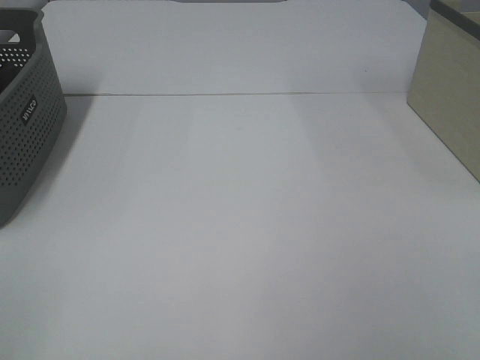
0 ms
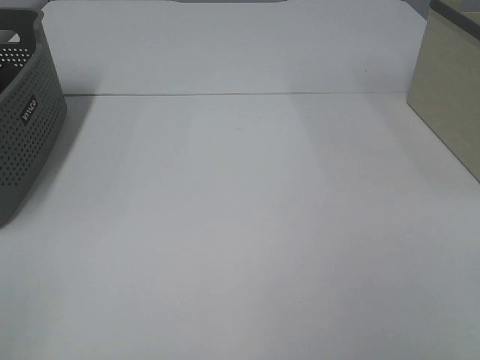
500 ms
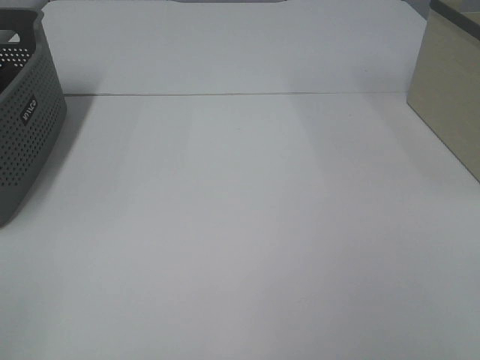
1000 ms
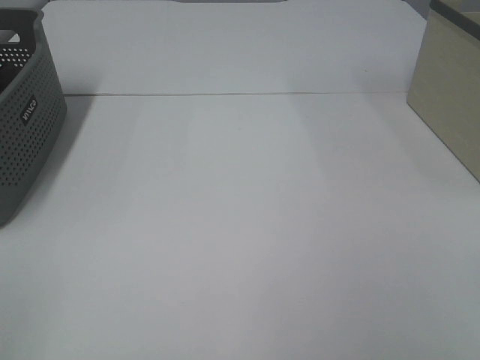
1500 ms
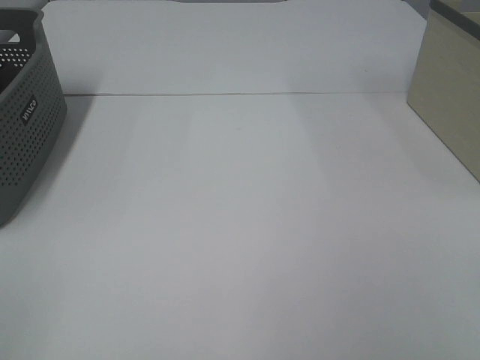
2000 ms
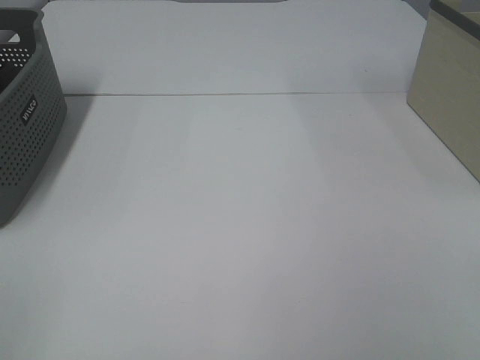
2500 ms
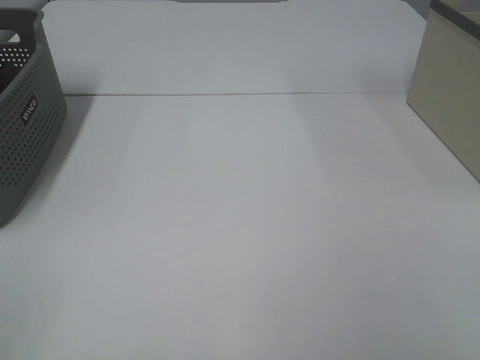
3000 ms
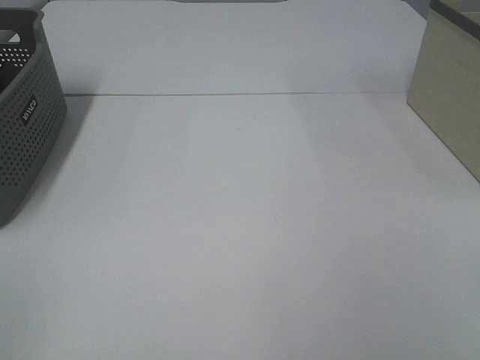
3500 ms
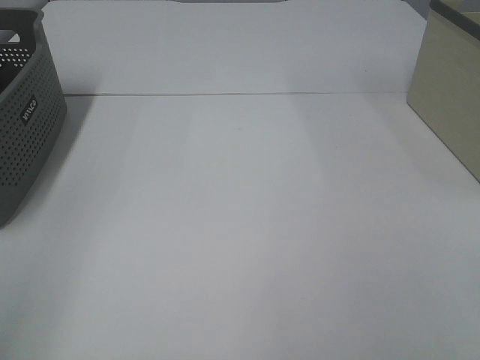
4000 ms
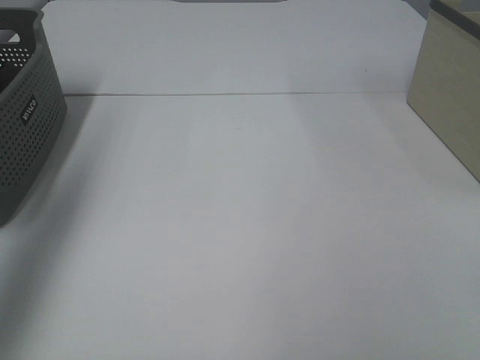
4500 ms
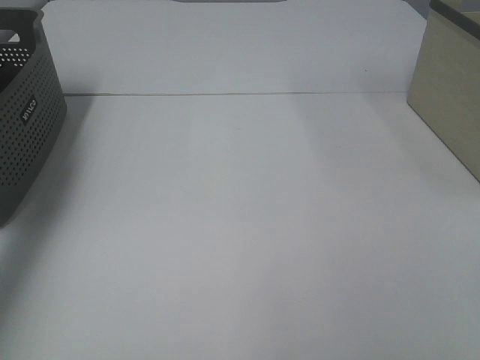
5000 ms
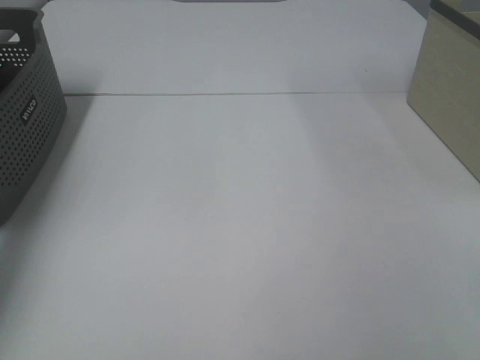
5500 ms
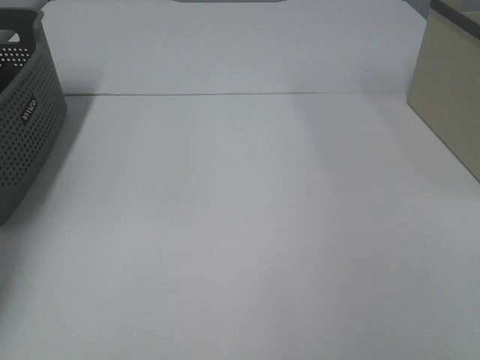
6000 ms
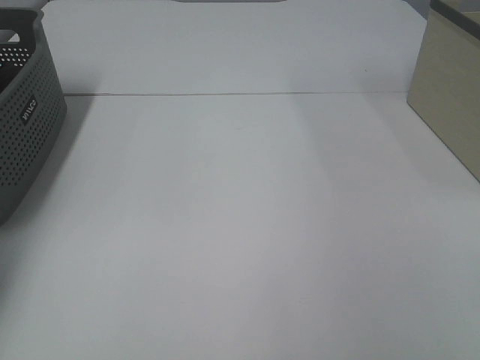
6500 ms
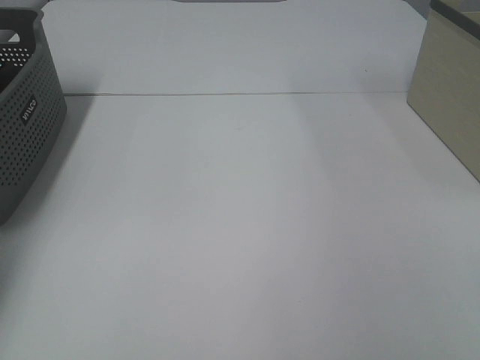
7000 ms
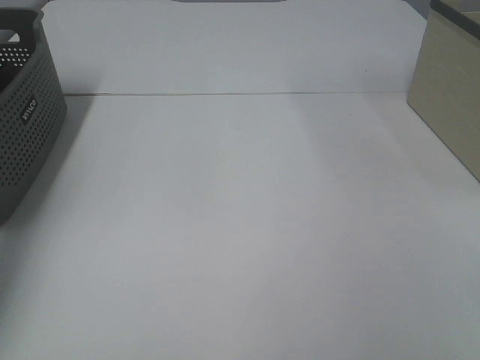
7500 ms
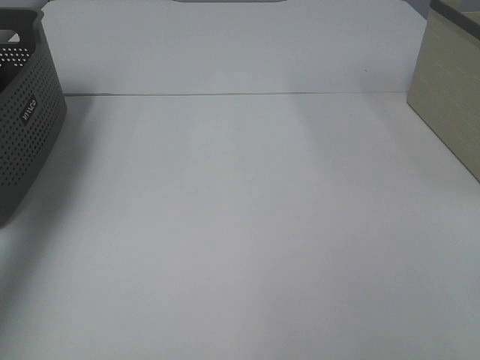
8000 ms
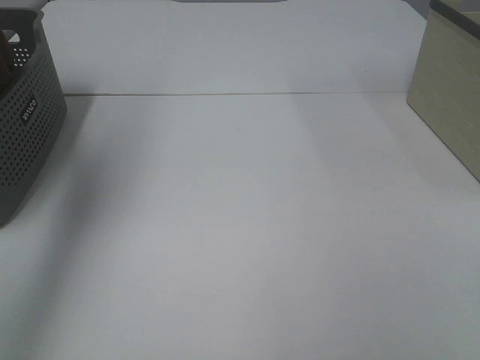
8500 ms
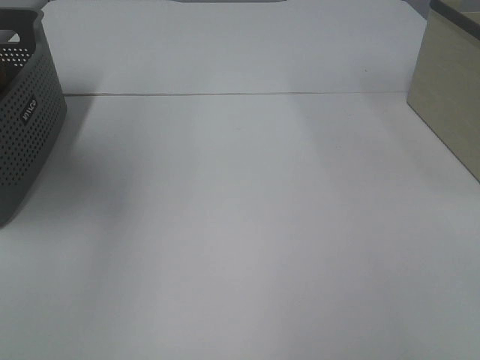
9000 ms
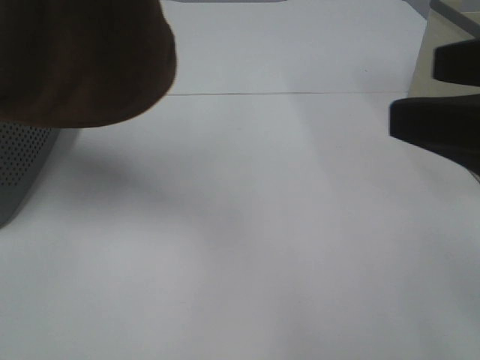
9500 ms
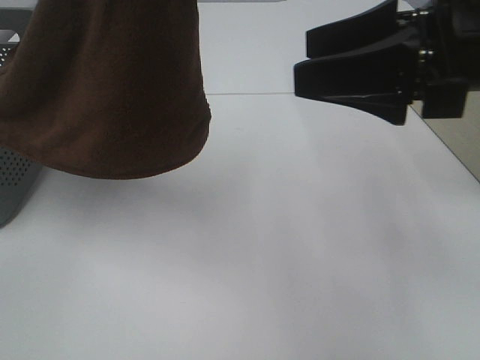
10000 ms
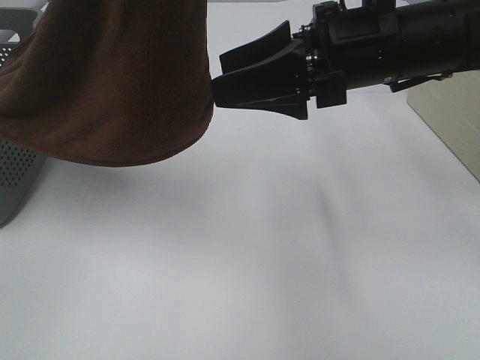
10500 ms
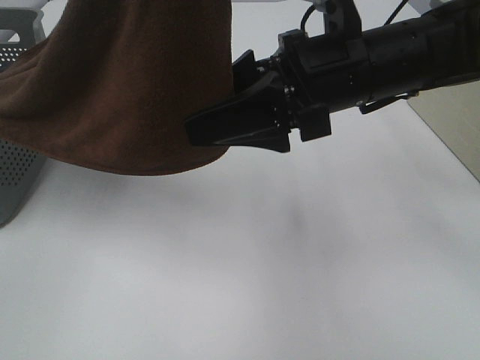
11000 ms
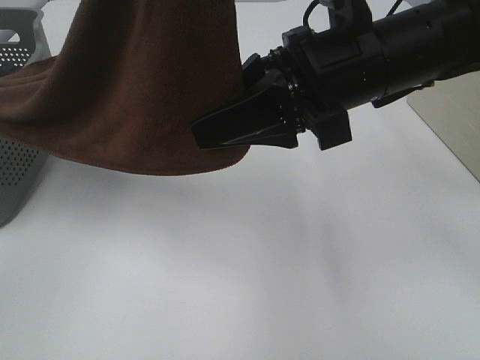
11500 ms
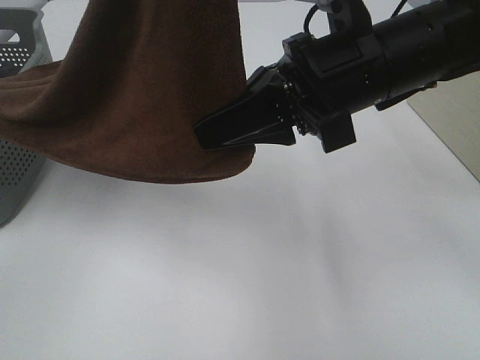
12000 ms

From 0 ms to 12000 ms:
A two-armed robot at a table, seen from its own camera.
Task of the whole recording: Remove the towel and place it.
From 0 ms to 2000 ms: Both grippers stay about where they are.
From 4000 ms to 6000 ms: The left gripper shifts some 40 cm forward and downward.
From 6000 ms to 8000 ms: The left gripper heads upward, covering about 15 cm, and closes.
From 8000 ms to 10000 ms: The right gripper shifts approximately 25 cm forward and to the left, while the left gripper is displaced to the right, backward and upward by about 35 cm.
From 10000 ms to 12000 ms: The right gripper shifts approximately 10 cm to the left, and closes up.

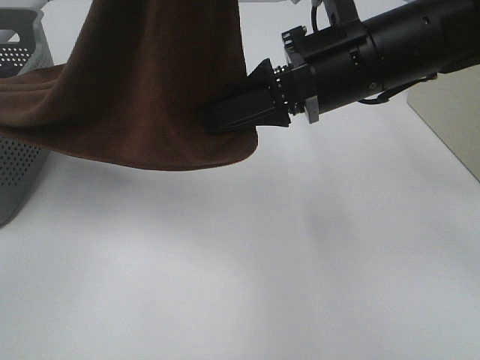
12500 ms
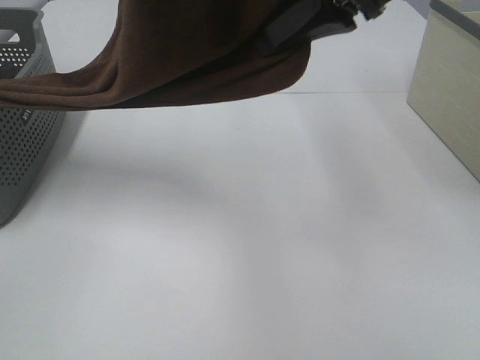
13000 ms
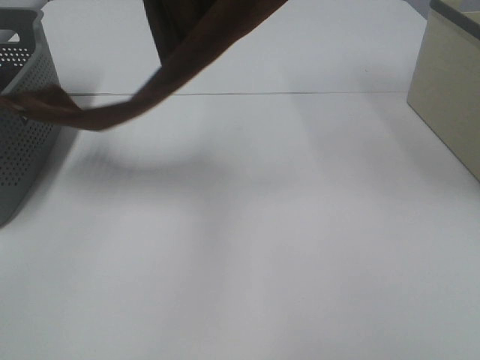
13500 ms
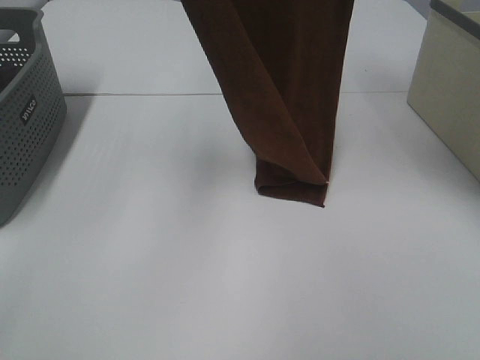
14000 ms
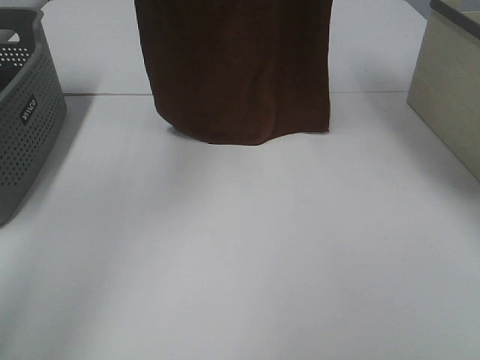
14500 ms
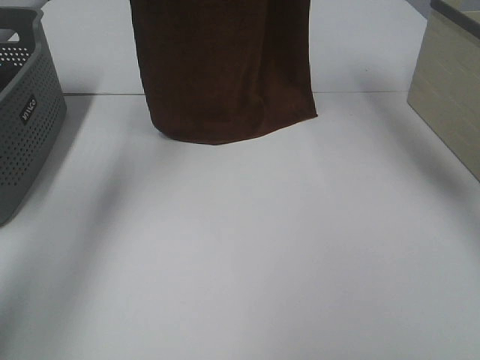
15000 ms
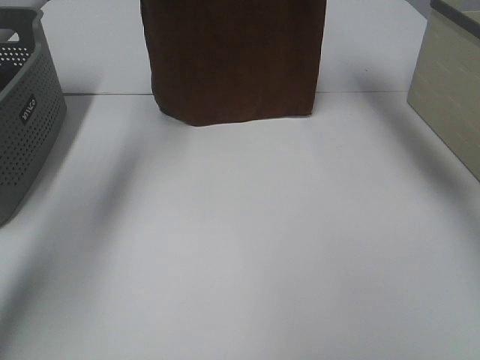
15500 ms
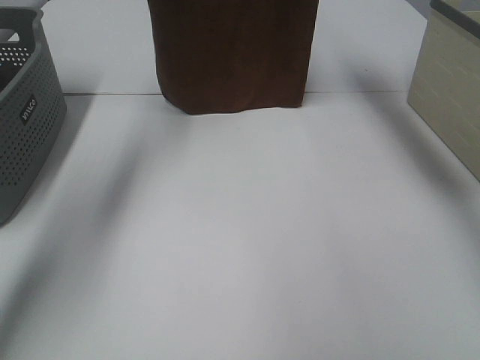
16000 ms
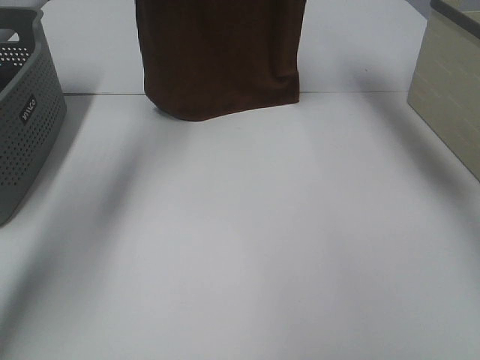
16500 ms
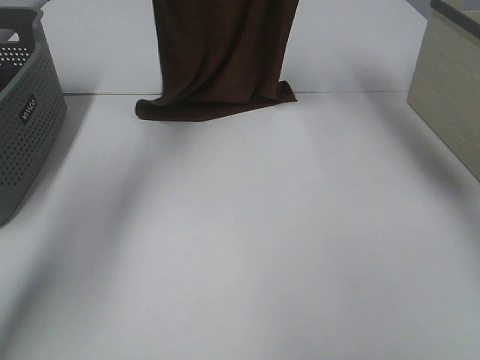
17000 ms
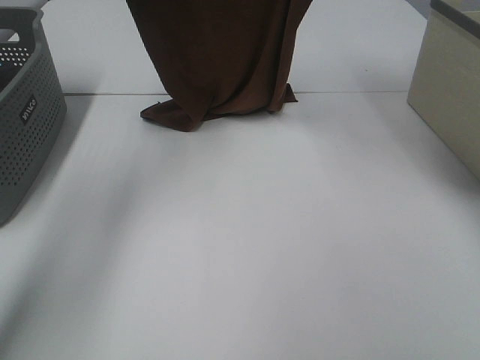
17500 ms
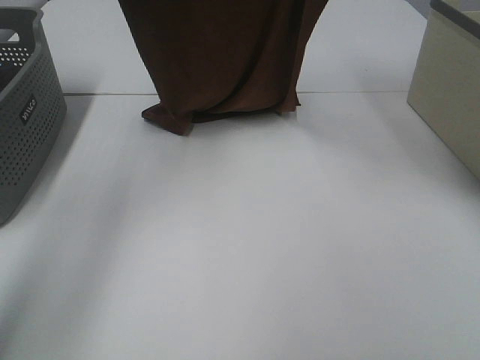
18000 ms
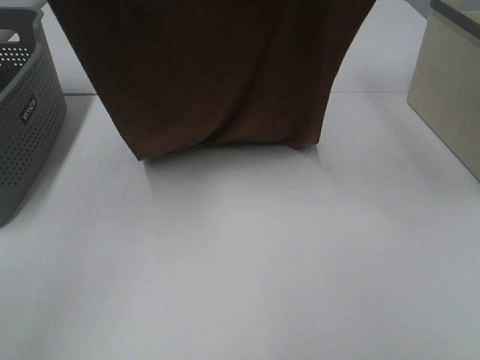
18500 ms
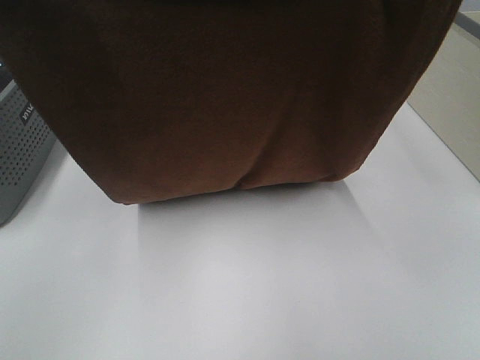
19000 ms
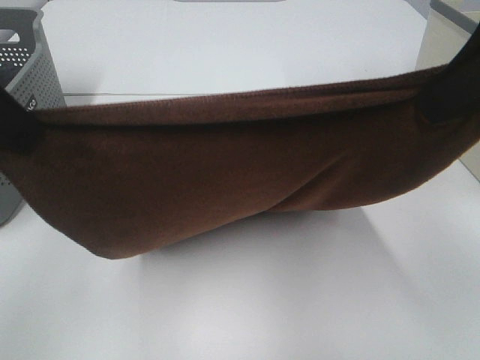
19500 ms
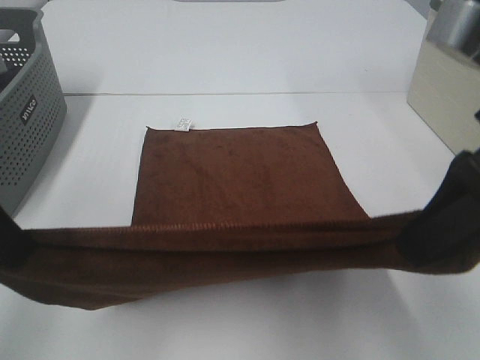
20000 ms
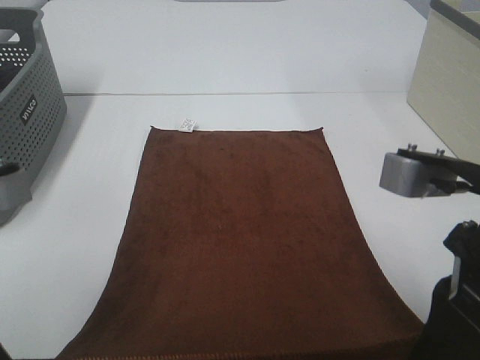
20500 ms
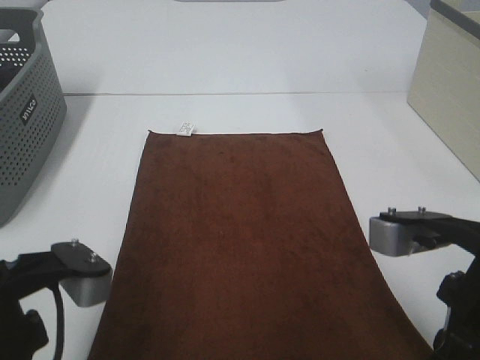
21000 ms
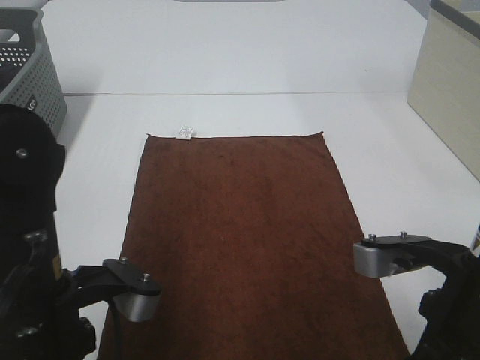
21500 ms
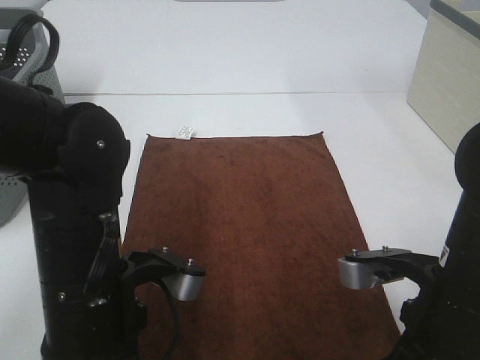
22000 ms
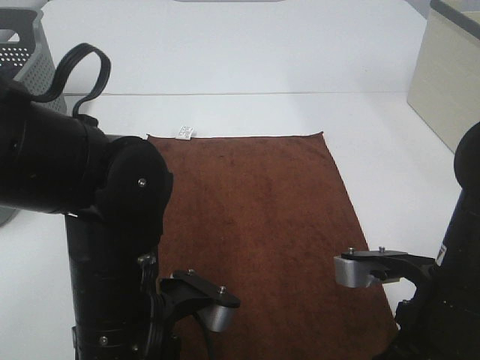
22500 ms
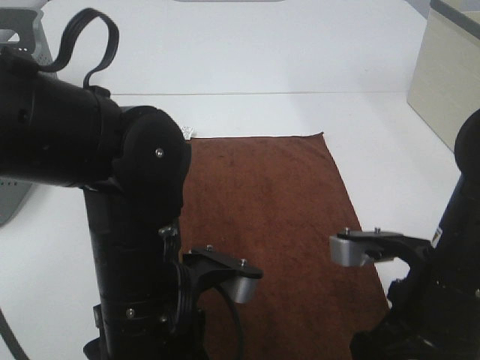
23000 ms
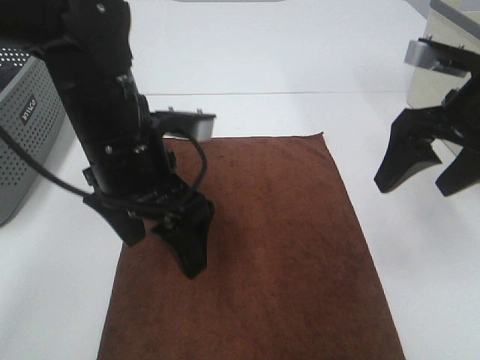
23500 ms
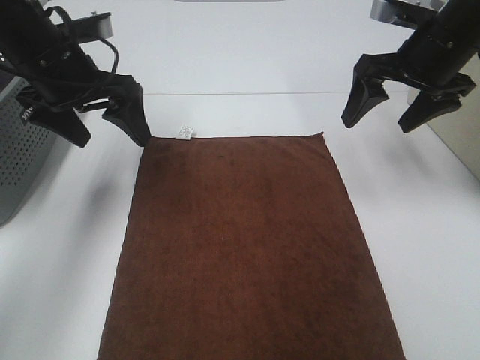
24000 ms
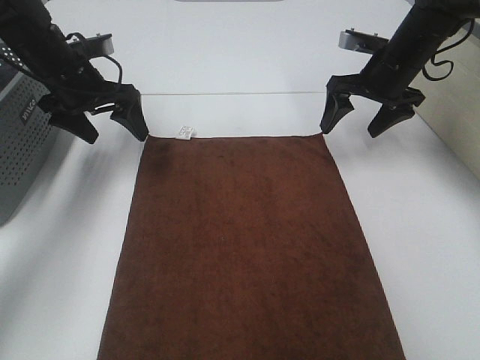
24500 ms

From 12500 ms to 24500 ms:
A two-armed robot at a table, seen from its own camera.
Task of the whole recording: Remove the towel and place it.
Step, from 13000 ms to 18000 ms: Left hand: spread the brown towel flat on the table.
Step, from 13000 ms to 18000 ms: Right hand: spread the brown towel flat on the table.
From 12500 ms to 14500 ms: The right gripper goes roughly 30 cm upward and forward; the left gripper travels forward and to the left by roughly 25 cm.
From 14500 ms to 16500 ms: The left gripper shifts about 10 cm forward, while the right gripper heads forward and downward, covering some 10 cm.
From 16500 ms to 18500 ms: The two grippers go some 20 cm backward.
From 18500 ms to 20500 ms: The grippers both shift downward and backward by roughly 30 cm.
From 20500 ms to 22500 ms: The right gripper travels downward by about 10 cm, and opens up. Meanwhile the left gripper travels to the right and downward by roughly 15 cm, and opens.
From 22500 ms to 24500 ms: The right gripper goes approximately 35 cm forward, and opens its fingers. Meanwhile the left gripper is displaced forward and to the left by some 35 cm.

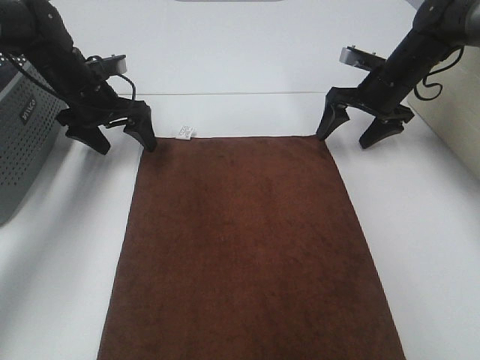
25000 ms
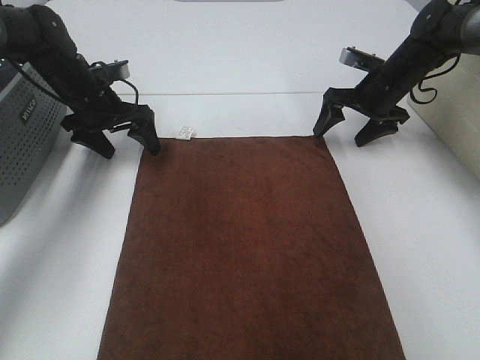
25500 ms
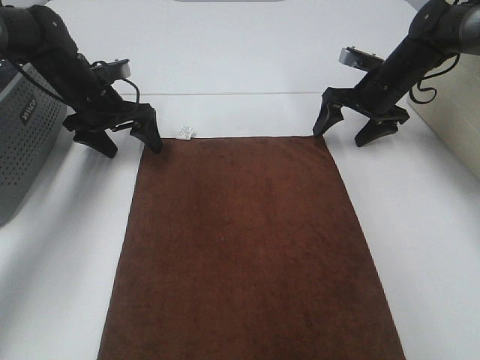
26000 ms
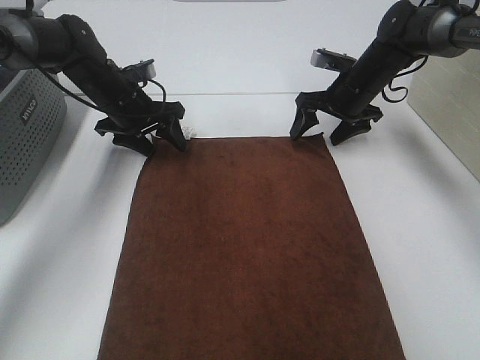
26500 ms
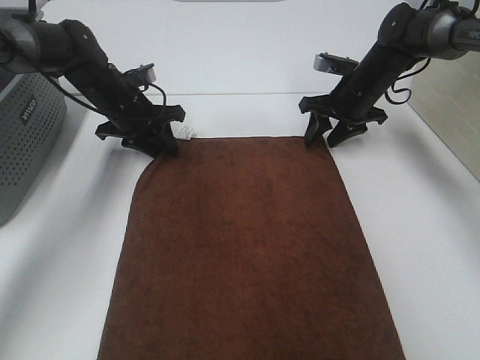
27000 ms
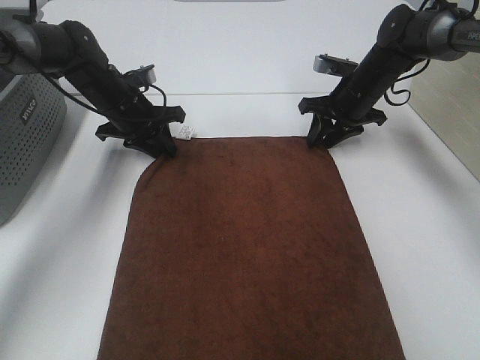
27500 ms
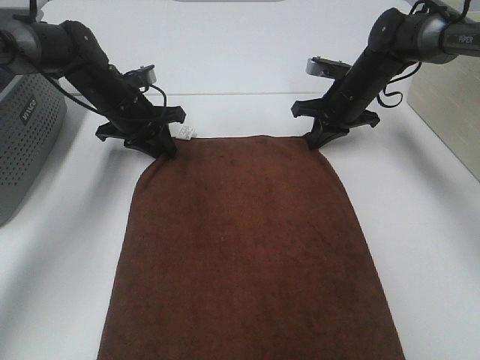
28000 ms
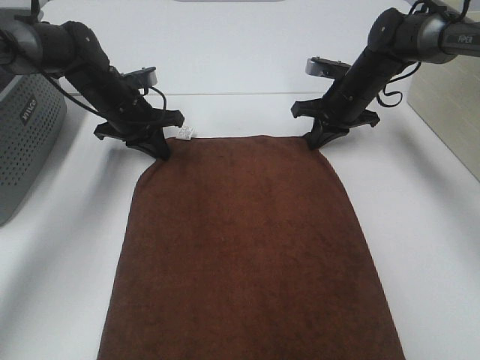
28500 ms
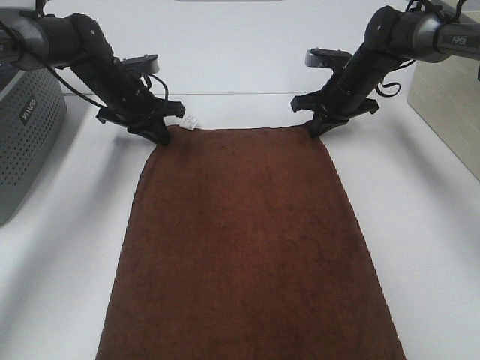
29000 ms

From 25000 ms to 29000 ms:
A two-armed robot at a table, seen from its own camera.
Task of the whole recording: Remove the towel and place it.
Step, from 25000 ms to 27000 ms: Left hand:adjust the brown towel.
Step, from 25000 ms to 27000 ms: Right hand:adjust the brown towel.
From 25000 ms to 27000 ms: The left gripper ends up roughly 5 cm from where it was, and closes up. The right gripper closes up.
From 27000 ms to 29000 ms: The right gripper closes its fingers.
